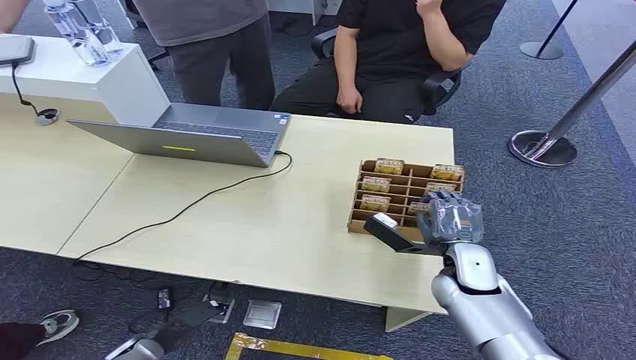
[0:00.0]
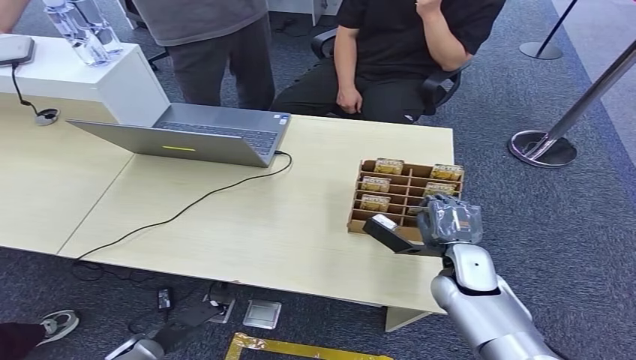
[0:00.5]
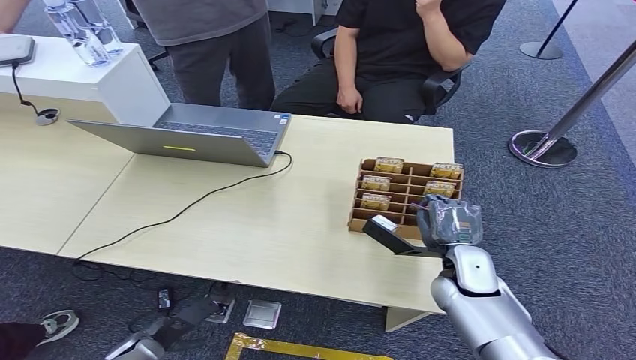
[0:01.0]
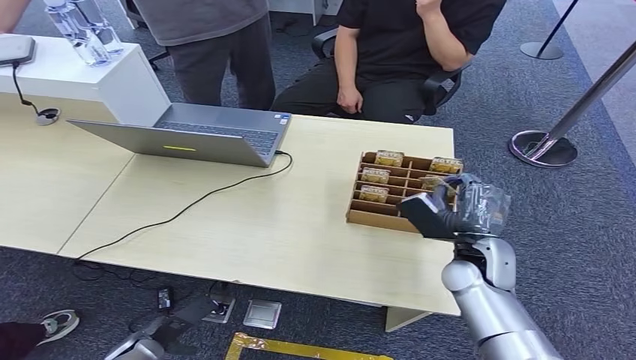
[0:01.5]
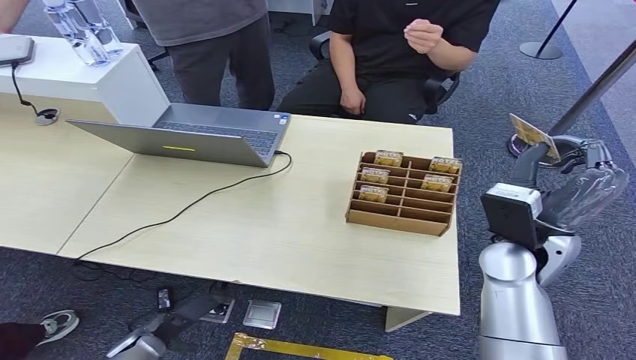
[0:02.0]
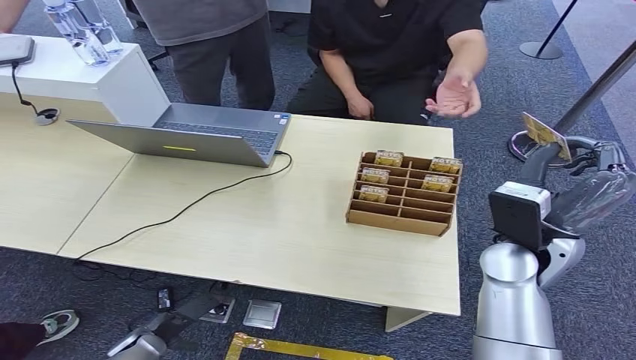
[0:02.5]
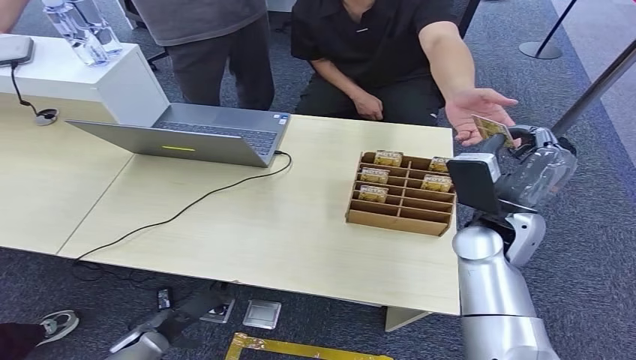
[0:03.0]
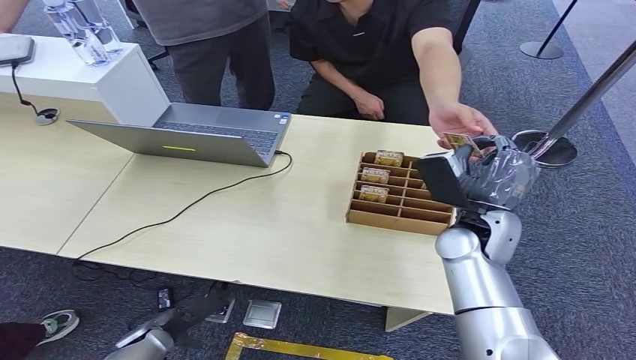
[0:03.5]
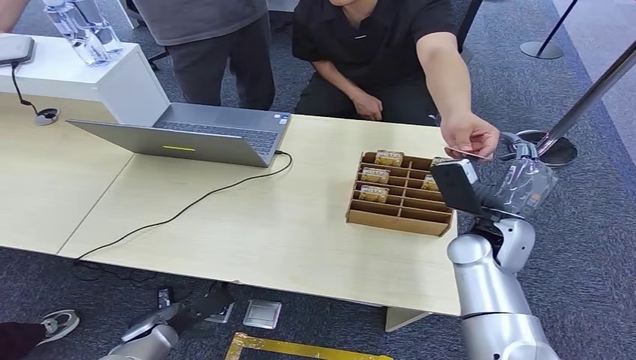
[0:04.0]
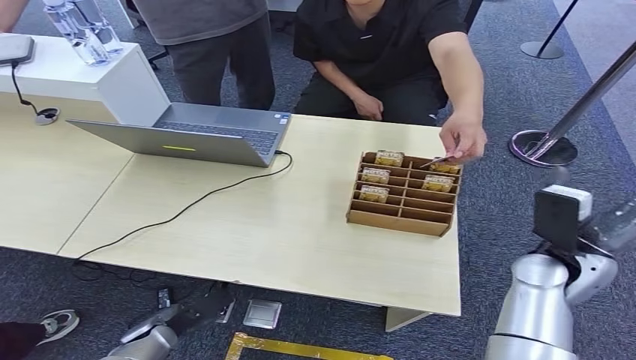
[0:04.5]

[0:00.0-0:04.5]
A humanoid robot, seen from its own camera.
Step, 0:00.0 to 0:02.0: Pick up the key card from the card box.
Step, 0:02.5 to 0:04.5: Hand the key card to the target.

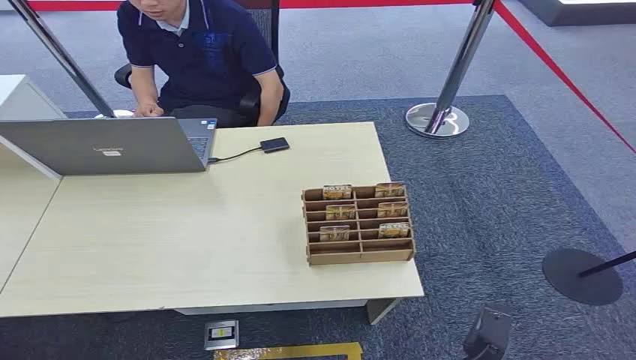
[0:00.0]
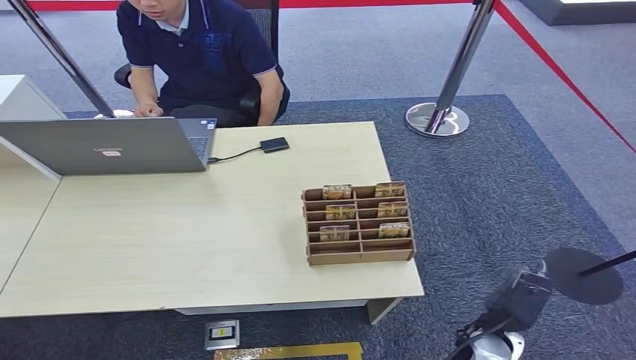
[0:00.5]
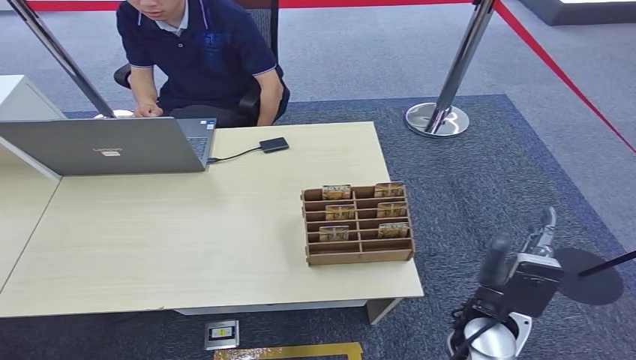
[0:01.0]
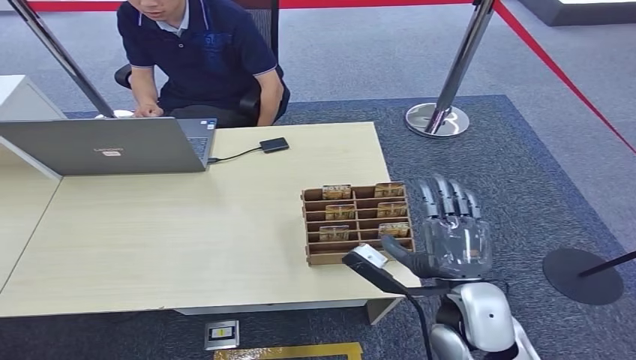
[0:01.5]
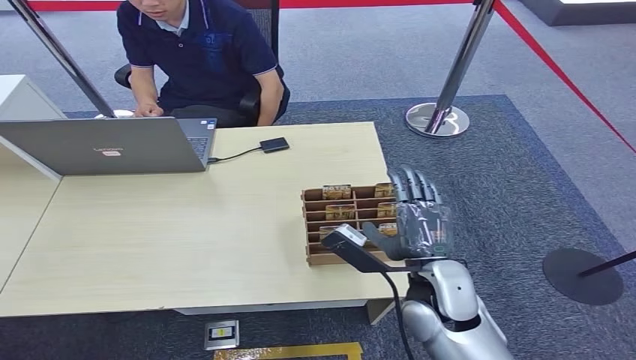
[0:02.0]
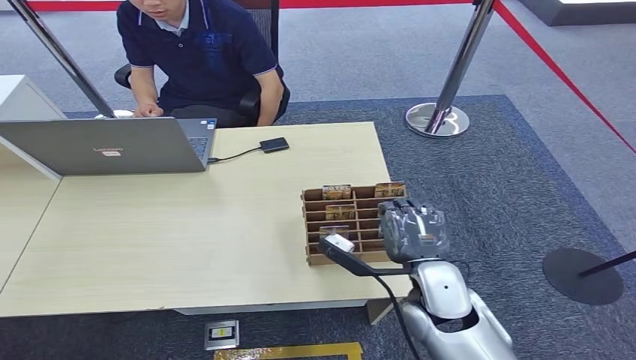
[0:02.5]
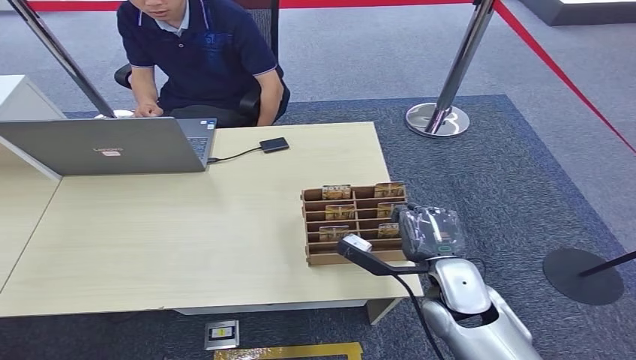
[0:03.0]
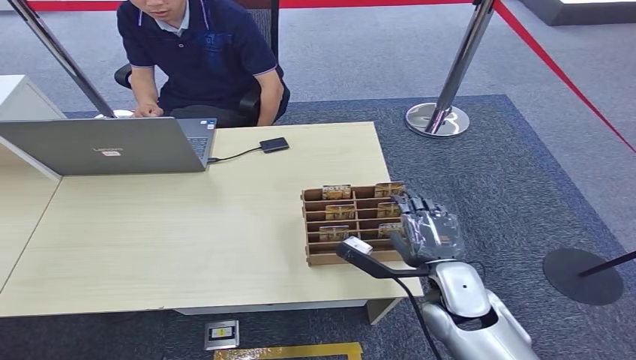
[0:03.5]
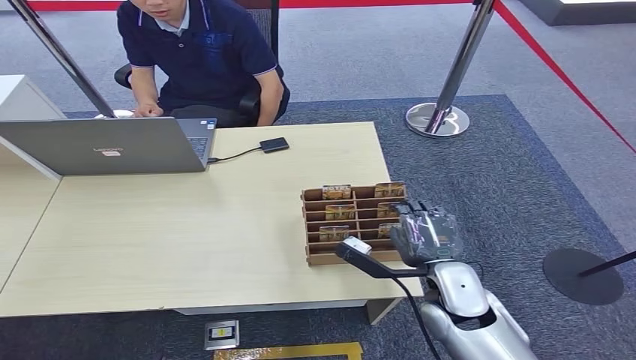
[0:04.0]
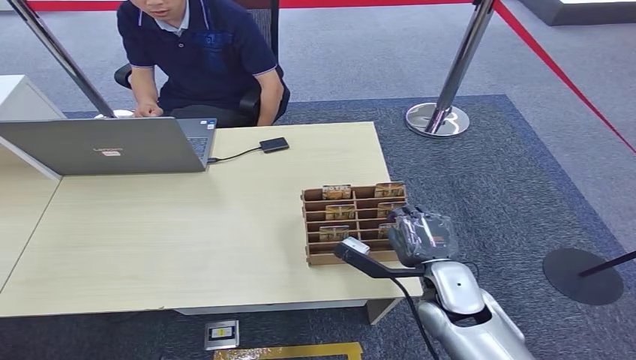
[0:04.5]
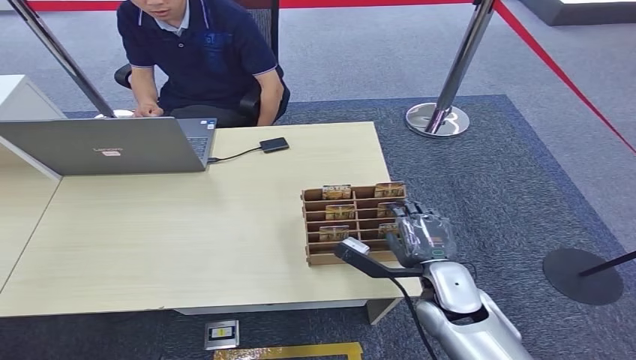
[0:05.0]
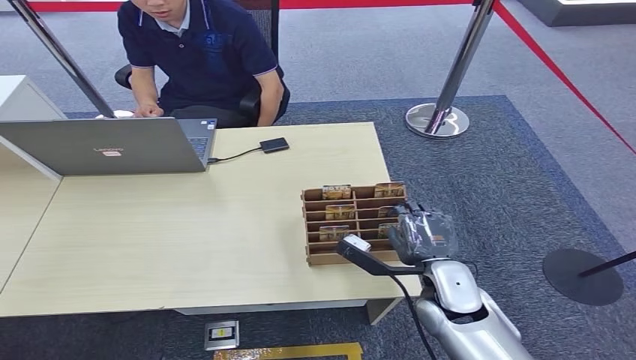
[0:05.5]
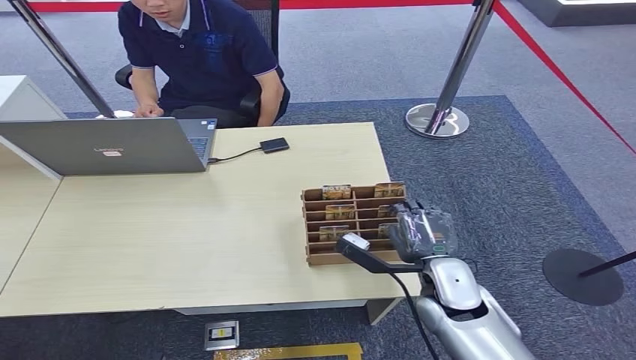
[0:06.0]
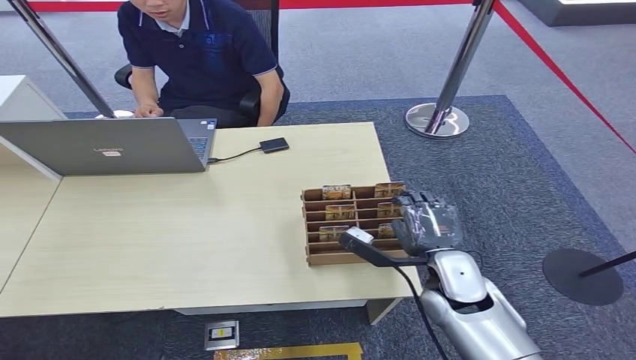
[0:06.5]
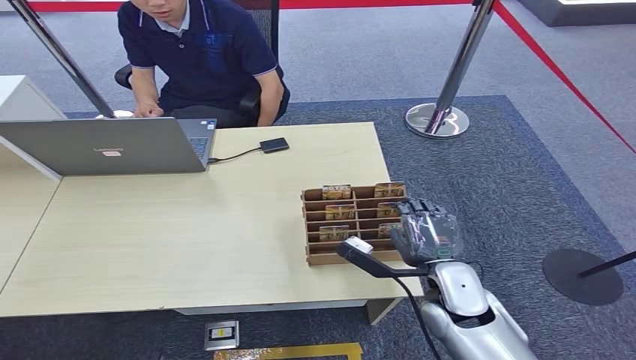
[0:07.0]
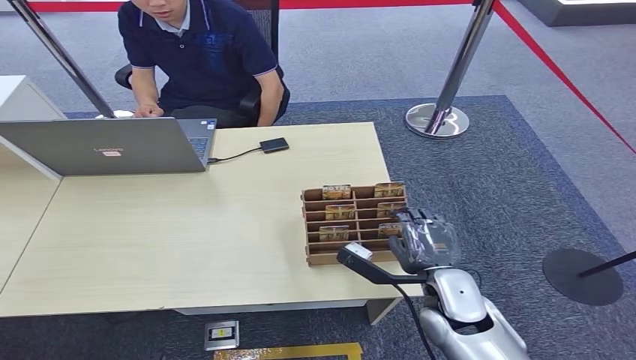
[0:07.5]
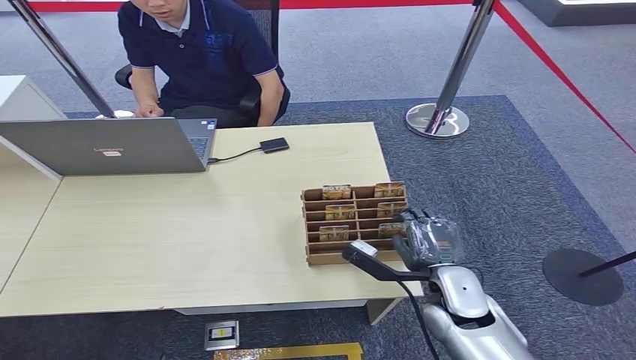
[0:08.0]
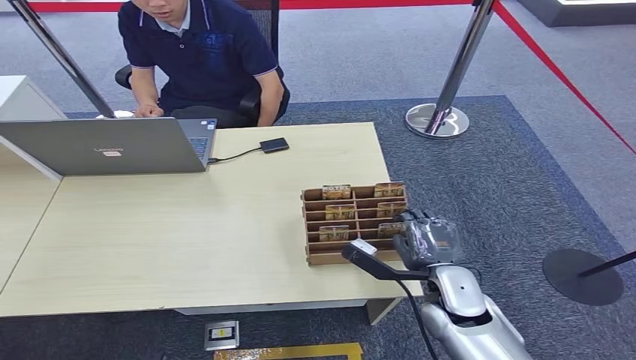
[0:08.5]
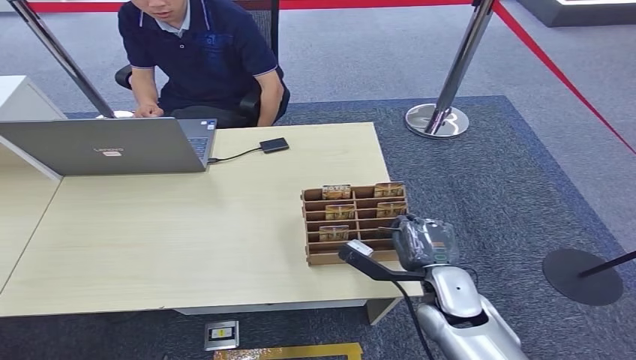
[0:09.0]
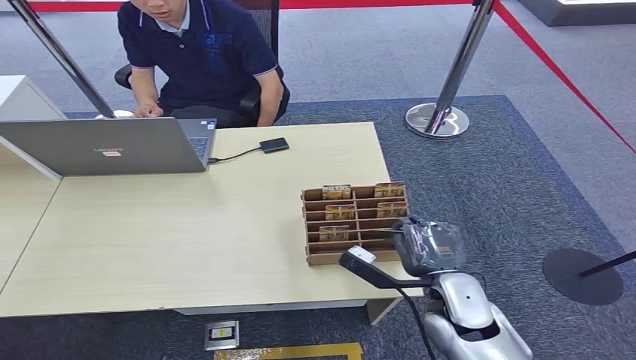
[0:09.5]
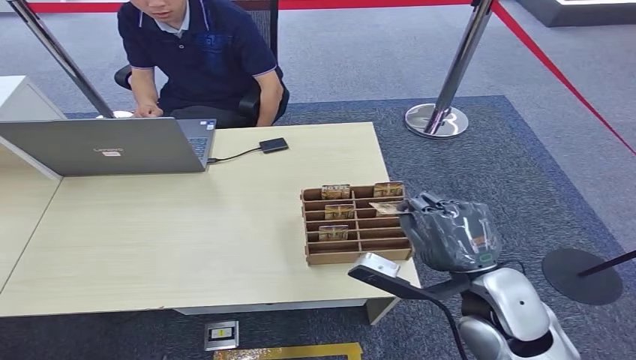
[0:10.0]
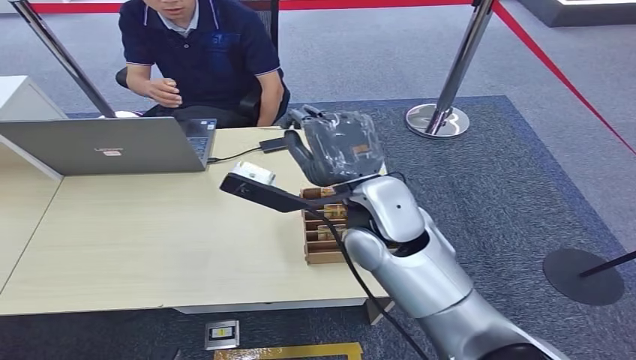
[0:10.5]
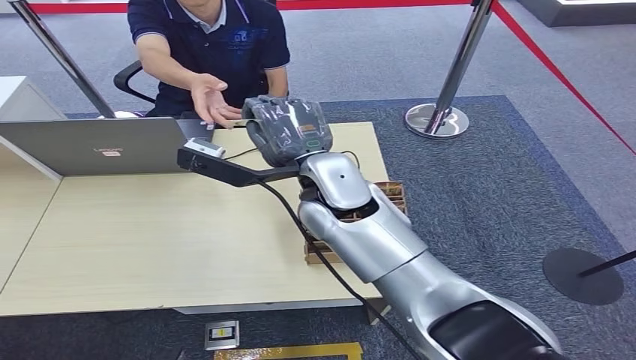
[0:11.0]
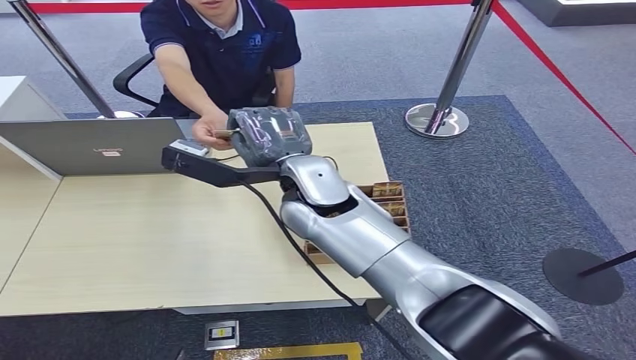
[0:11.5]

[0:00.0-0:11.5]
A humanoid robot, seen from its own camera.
Step, 0:00.0 to 0:10.5: Pick up the key card from the card box.
Step, 0:11.0 to 0:11.5: Hand the key card to the target.
0:02.0 to 0:04.0: The right hand changes place by approximately 5 cm.
0:04.0 to 0:09.5: The hands stay close to where they were, moving slightly.
0:09.5 to 0:11.5: The right hand is displaced to the left, upward and forward by some 30 cm.
